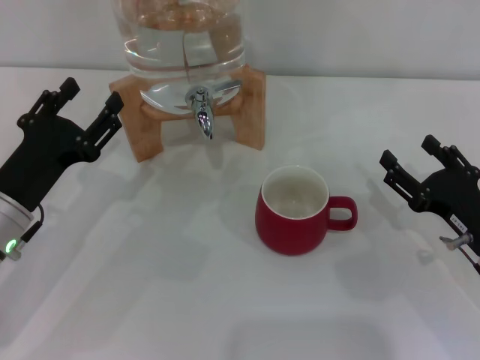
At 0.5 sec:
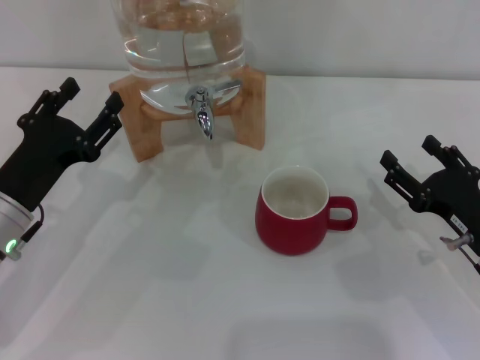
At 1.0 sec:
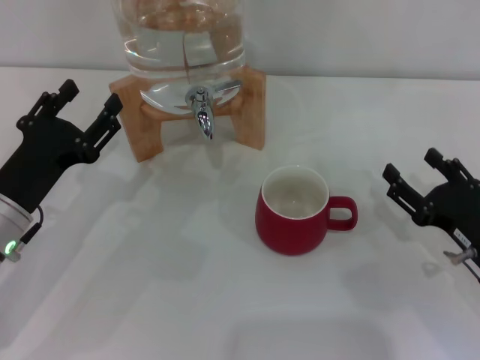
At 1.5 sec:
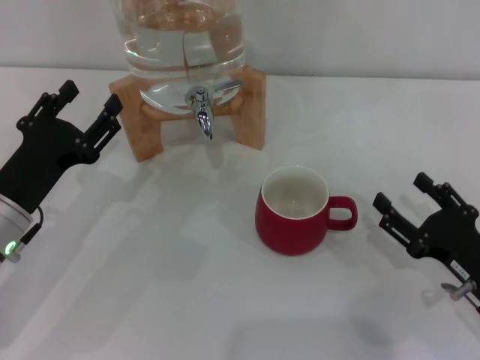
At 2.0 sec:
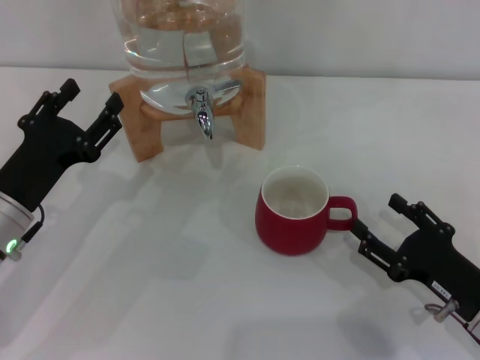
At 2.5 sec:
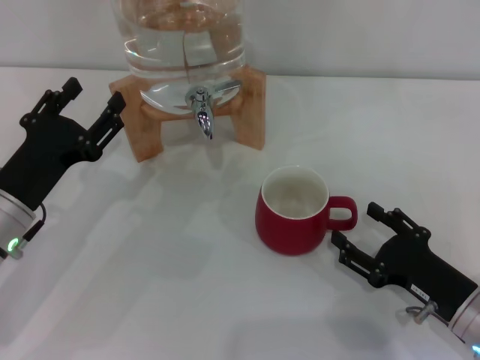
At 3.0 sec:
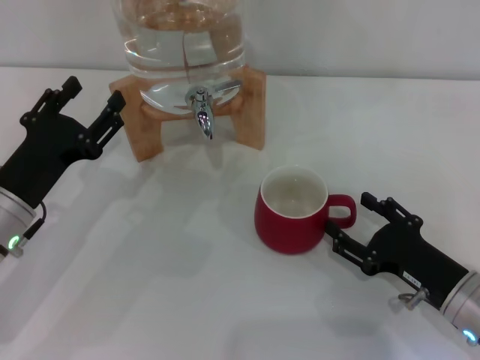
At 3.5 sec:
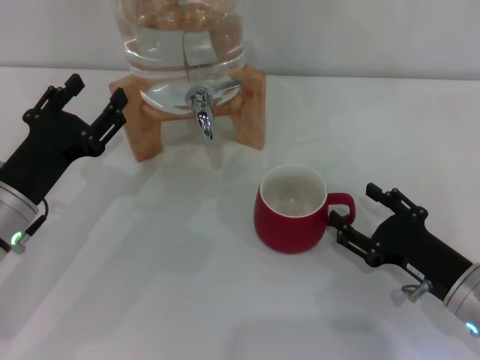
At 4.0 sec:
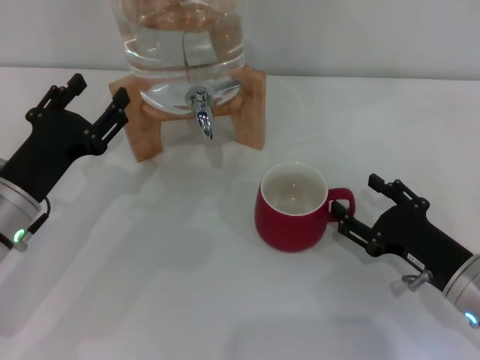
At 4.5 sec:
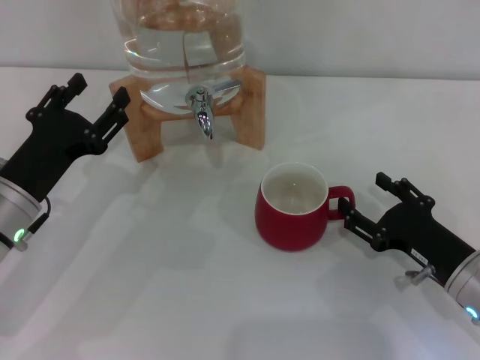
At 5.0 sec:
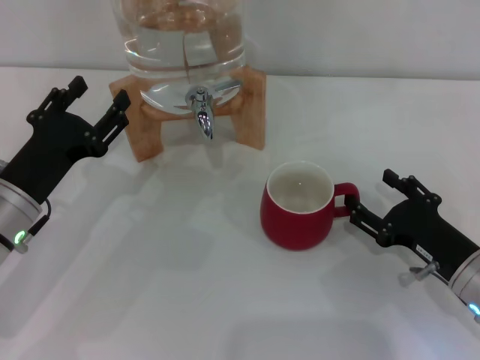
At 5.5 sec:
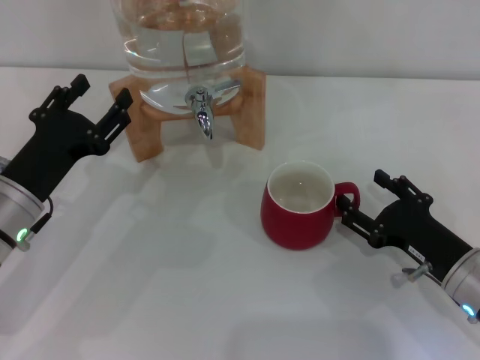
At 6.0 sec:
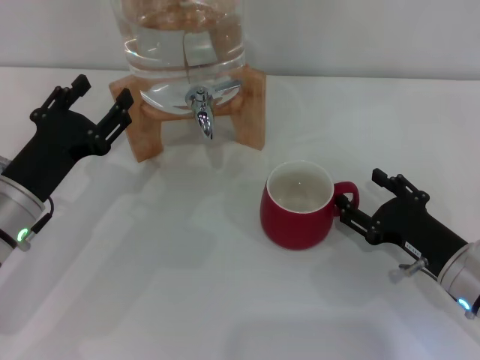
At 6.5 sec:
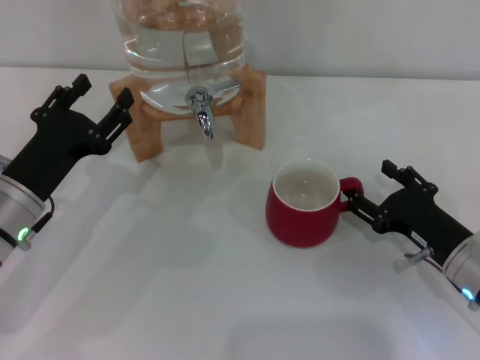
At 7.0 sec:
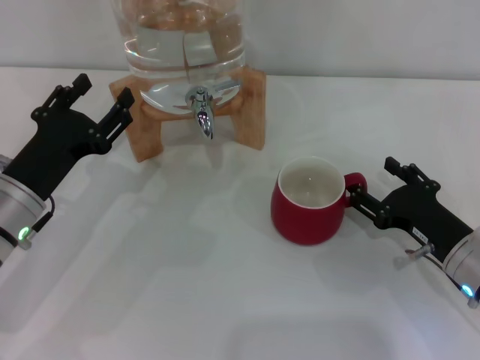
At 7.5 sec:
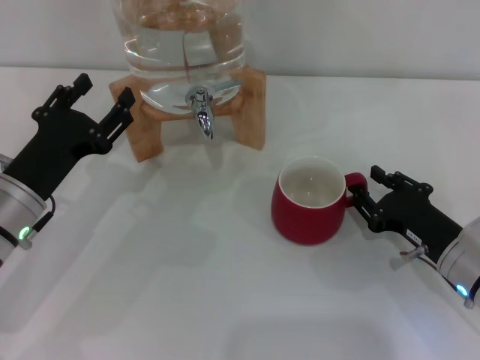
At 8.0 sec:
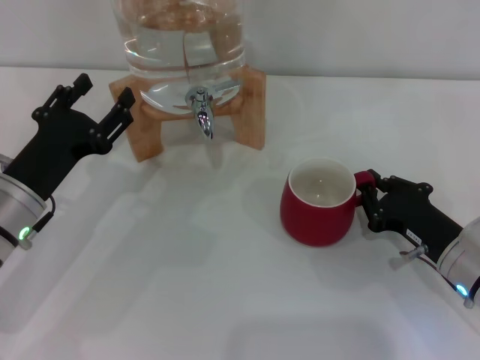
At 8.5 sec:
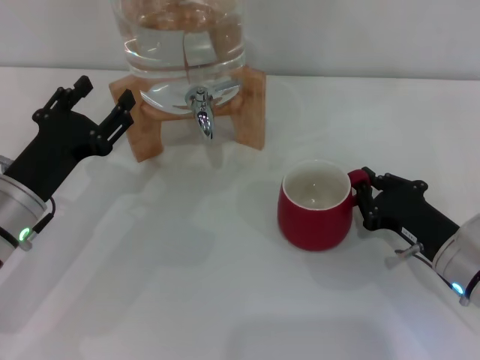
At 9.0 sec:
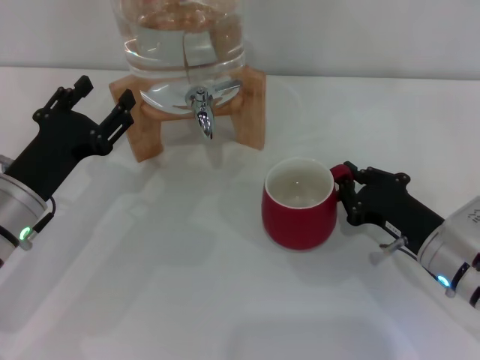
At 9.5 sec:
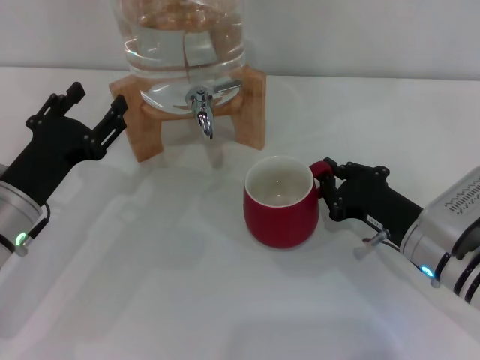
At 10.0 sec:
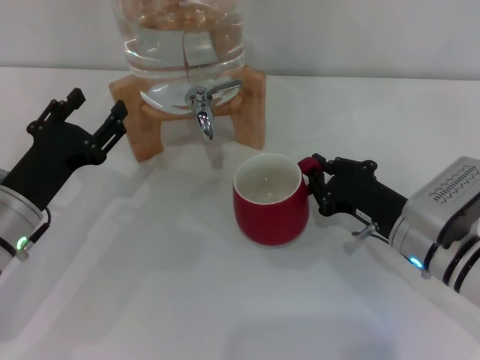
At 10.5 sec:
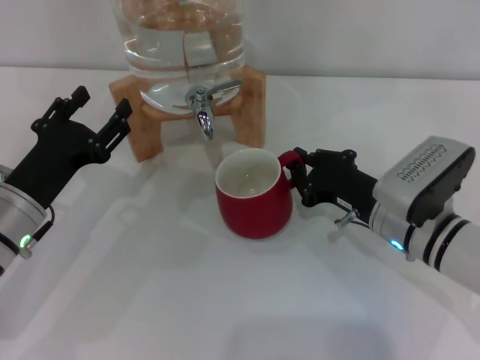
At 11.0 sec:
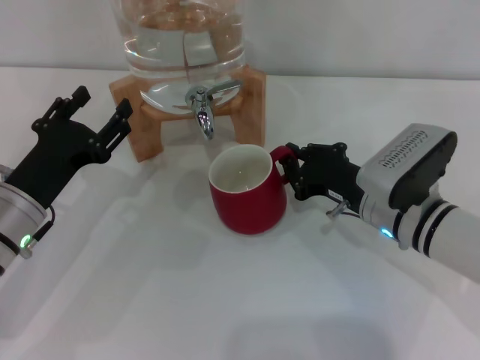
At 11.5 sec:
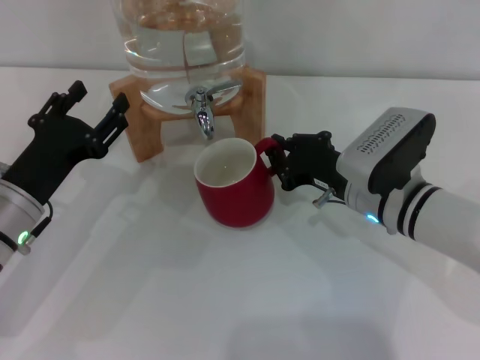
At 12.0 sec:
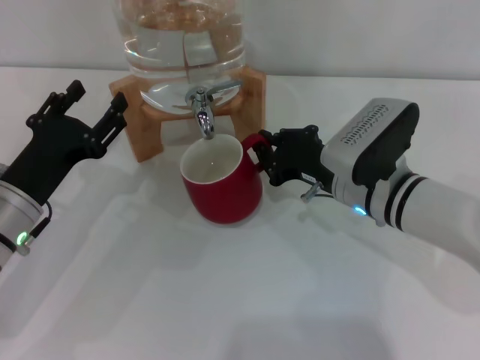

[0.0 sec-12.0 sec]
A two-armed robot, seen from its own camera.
Task of the whole recording: the right gripper pick up the red cup and place it horizontally under the faucet, the left gripper turn on the faucet to fill the cup, and then turn off the faucet.
0.0 sec to 2.0 sec: The right gripper shifts by about 5 cm.
2.0 sec to 4.0 sec: The grippers move only a little.
4.0 sec to 6.0 sec: The two grippers keep their place.
6.0 sec to 8.0 sec: The right gripper closes its fingers.
8.0 sec to 10.0 sec: The right gripper moves some 5 cm.
10.0 sec to 12.0 sec: The right gripper heads to the left, covering about 5 cm.

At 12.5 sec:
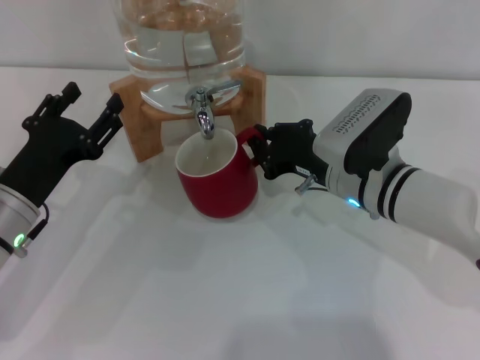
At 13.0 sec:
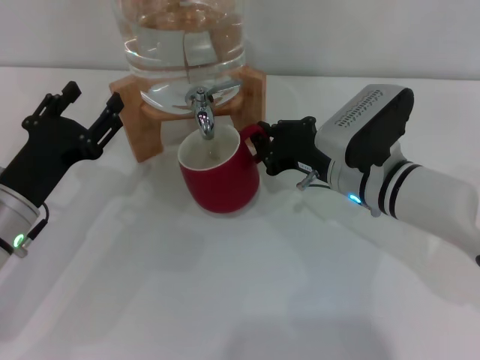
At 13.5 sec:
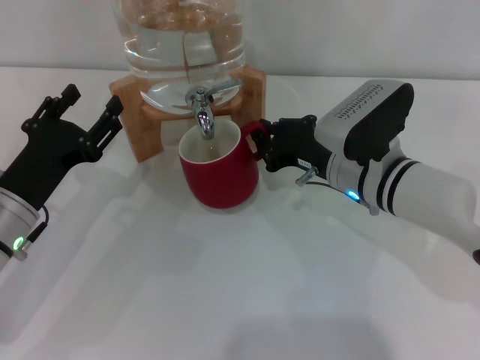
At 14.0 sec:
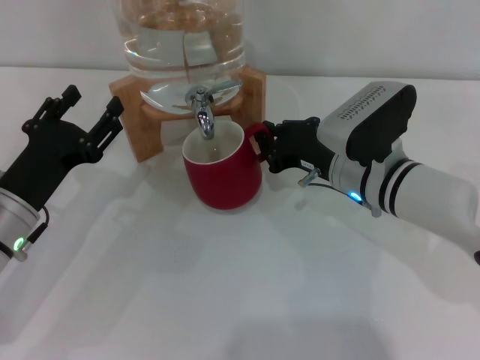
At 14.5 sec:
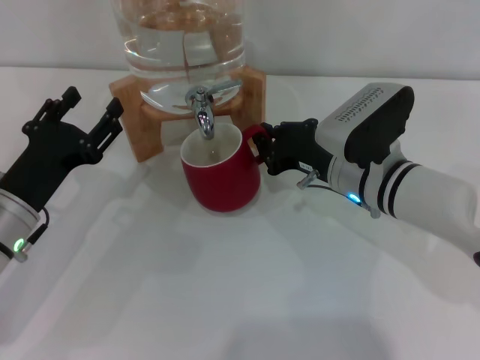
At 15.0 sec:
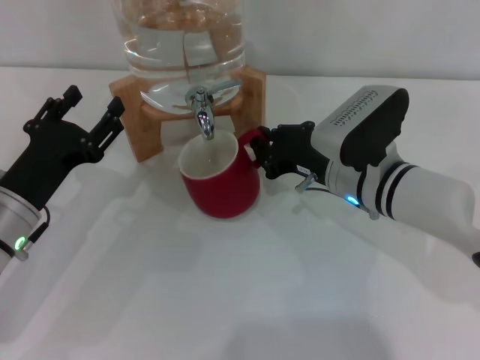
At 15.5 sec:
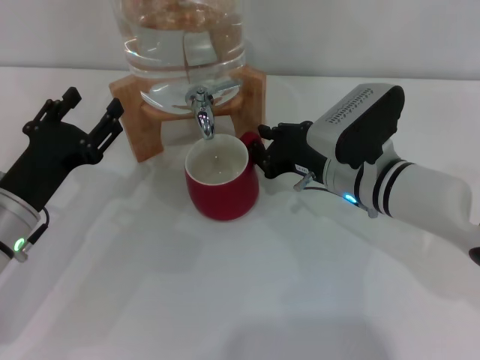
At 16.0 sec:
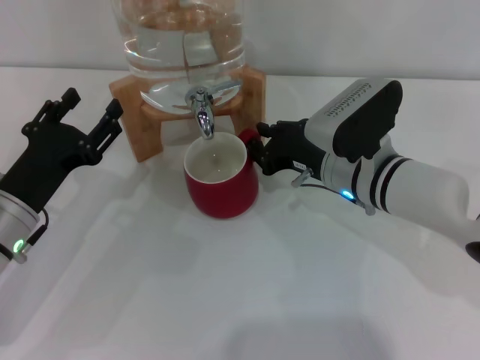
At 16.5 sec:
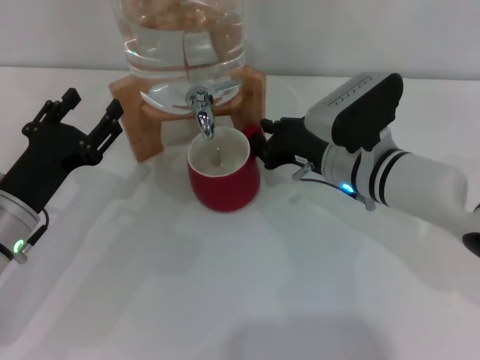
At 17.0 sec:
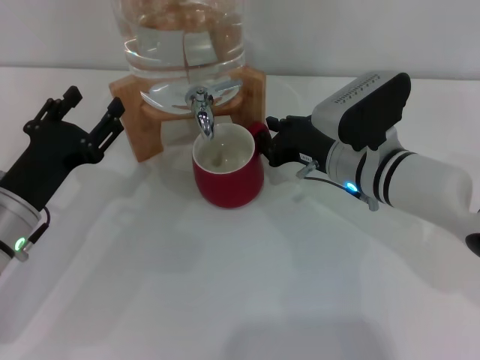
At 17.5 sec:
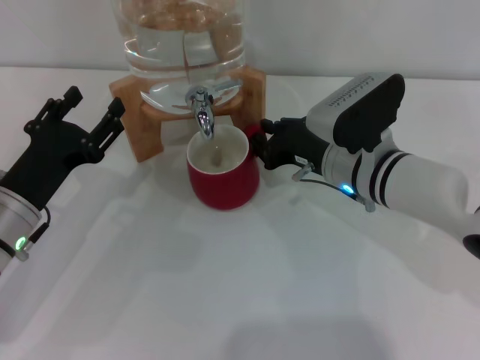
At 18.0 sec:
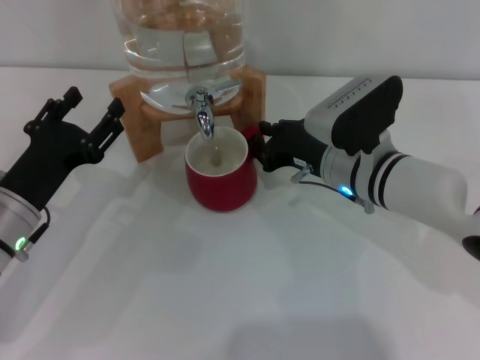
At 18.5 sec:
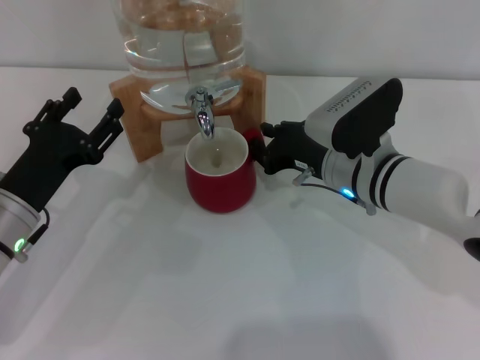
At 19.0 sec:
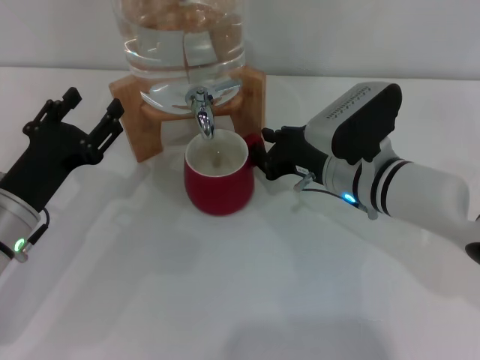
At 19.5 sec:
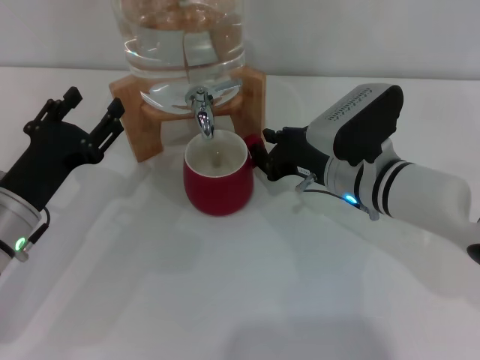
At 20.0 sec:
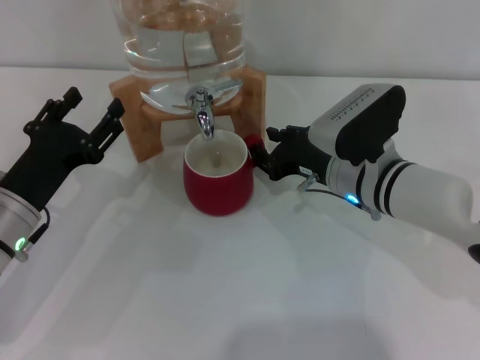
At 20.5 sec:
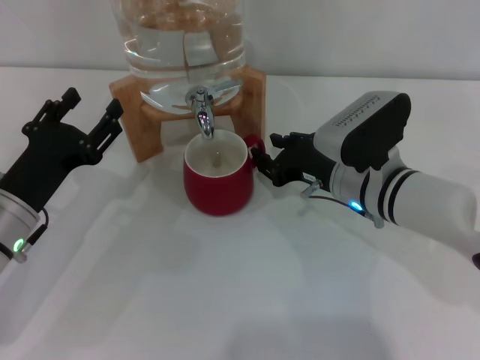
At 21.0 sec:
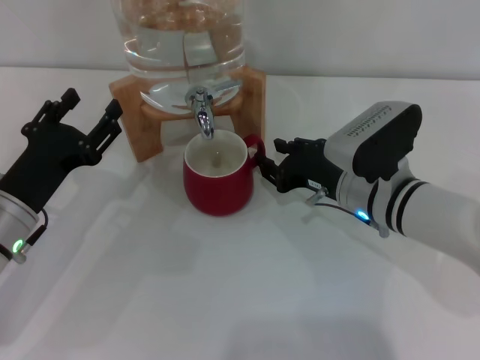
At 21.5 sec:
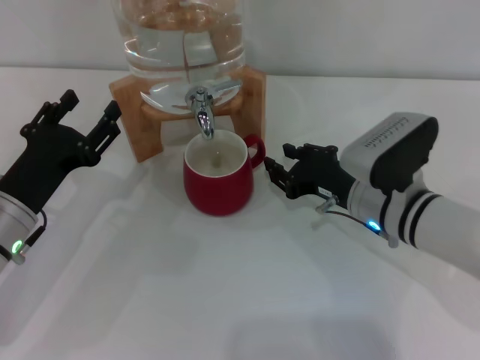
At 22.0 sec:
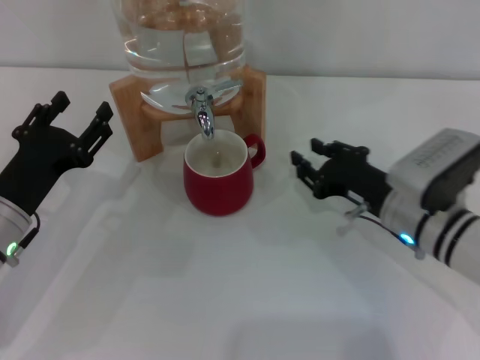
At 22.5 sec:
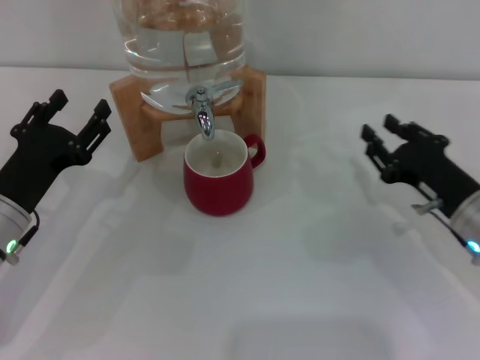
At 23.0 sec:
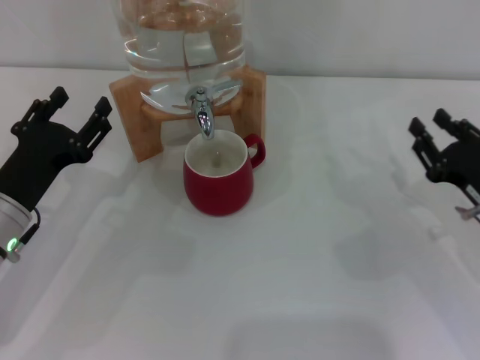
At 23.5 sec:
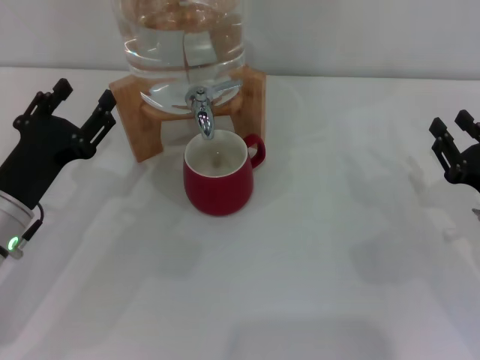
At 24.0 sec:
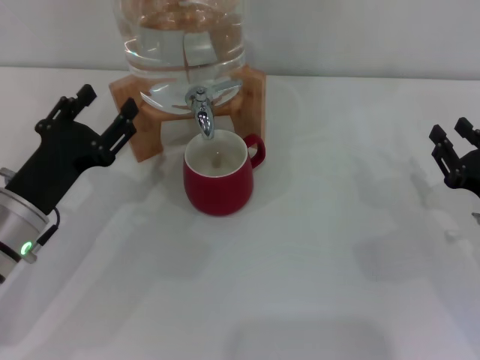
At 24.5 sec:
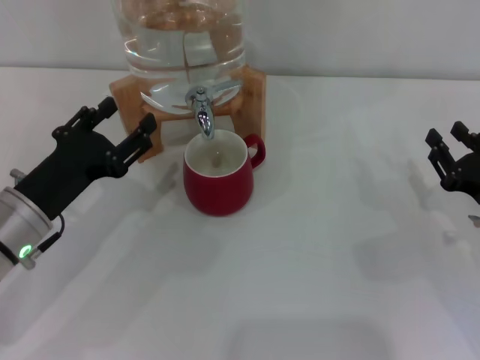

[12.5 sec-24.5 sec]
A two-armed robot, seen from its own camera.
Task of the whole recording: the right gripper pick up the red cup and place it horizontally under the faucet, the left gripper turn on the faucet to fill the cup, and then turn off the faucet.
Step, 12.5 sec to 21.0 sec: Move the cup beneath the water dispenser nozzle with the right gripper.
12.5 sec to 14.5 sec: Both grippers stay about where they are.
14.5 sec to 18.5 sec: Both grippers stay about where they are.
18.5 sec to 20.5 sec: The grippers move only a little.
20.5 sec to 22.5 sec: The right gripper goes roughly 15 cm to the right and backward.
22.5 sec to 24.5 sec: The right gripper shifts some 5 cm to the right.

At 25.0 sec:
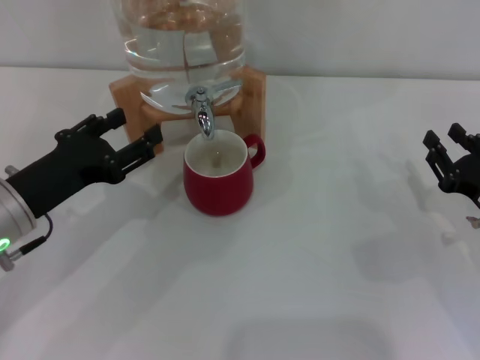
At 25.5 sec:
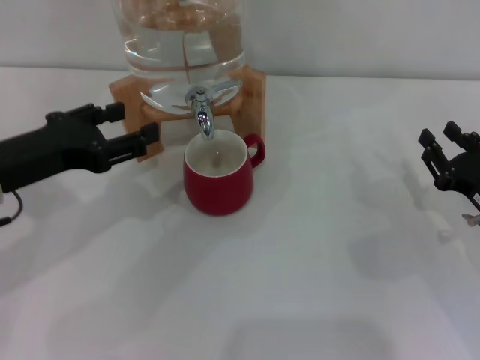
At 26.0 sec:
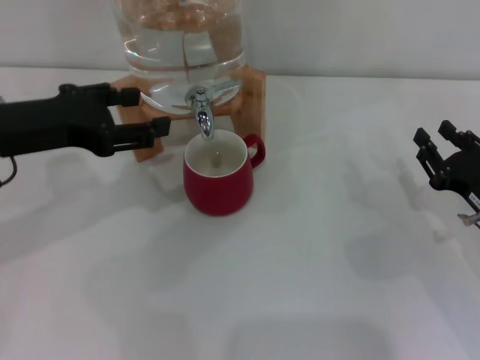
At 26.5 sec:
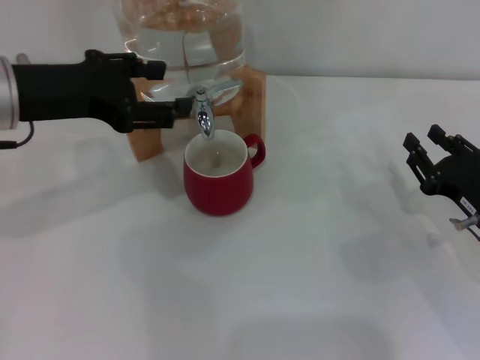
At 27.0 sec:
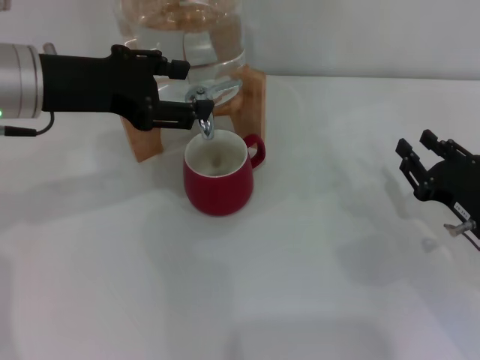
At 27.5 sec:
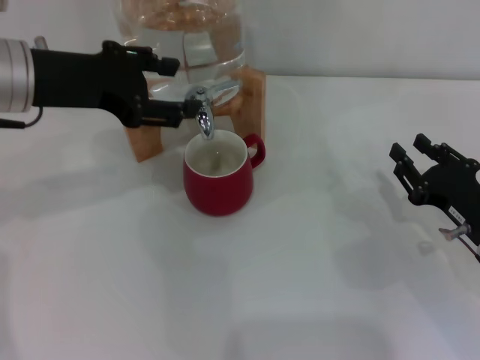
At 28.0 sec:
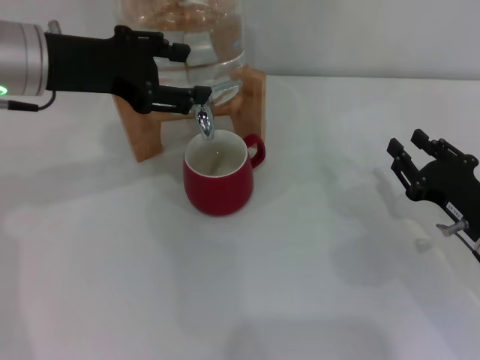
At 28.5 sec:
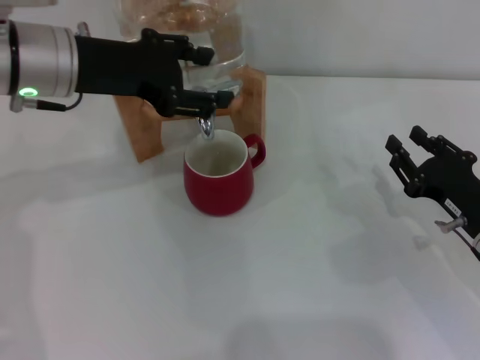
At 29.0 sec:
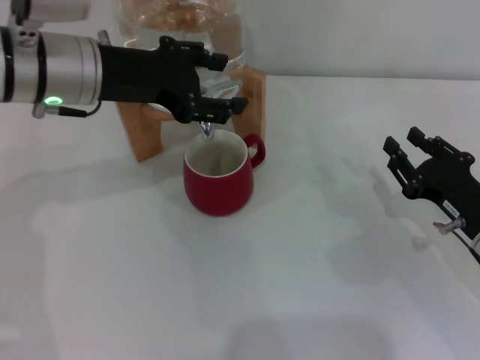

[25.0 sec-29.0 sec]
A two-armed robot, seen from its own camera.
Task of the whole recording: the right gripper pick up the red cup and place it horizontally under the faucet, the left gripper turn on the faucet to fill the cup, and then turn off the faucet.
25.0 sec to 27.0 sec: The left gripper goes approximately 15 cm upward and forward.
27.0 sec to 29.0 sec: The left gripper shifts by some 5 cm.
